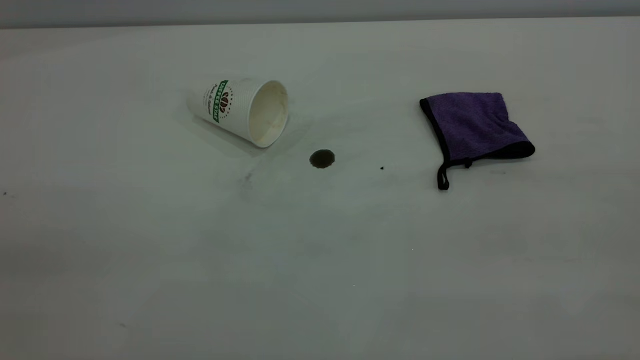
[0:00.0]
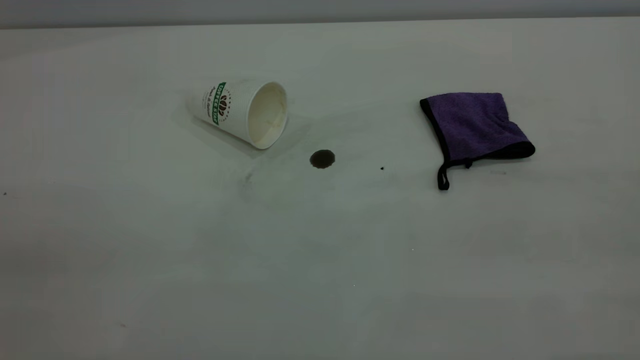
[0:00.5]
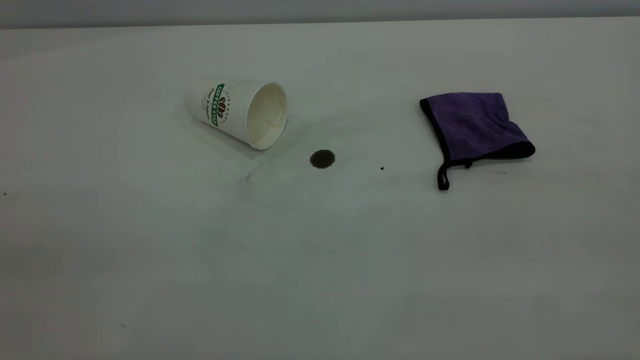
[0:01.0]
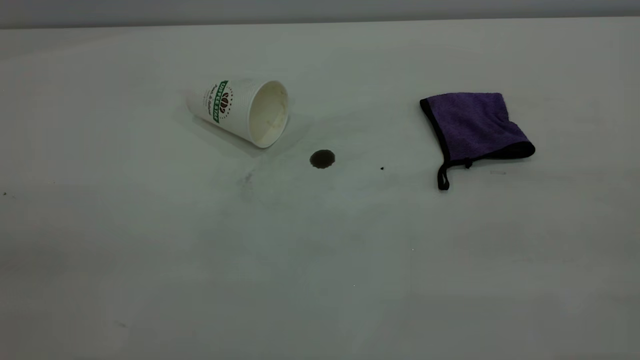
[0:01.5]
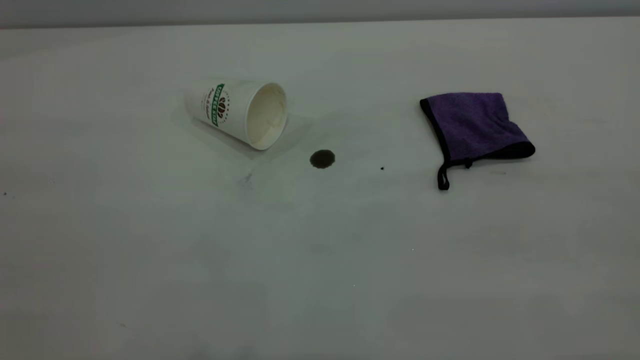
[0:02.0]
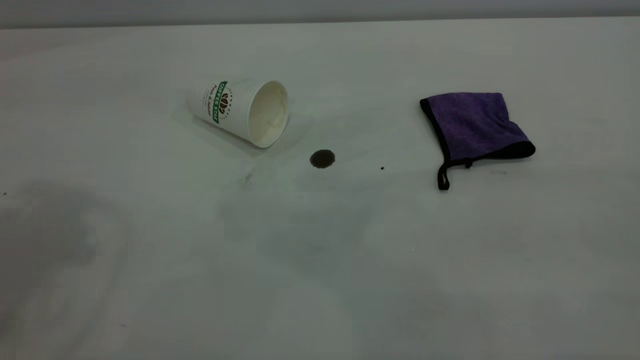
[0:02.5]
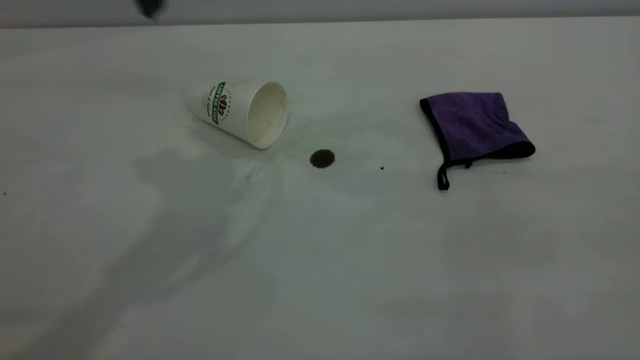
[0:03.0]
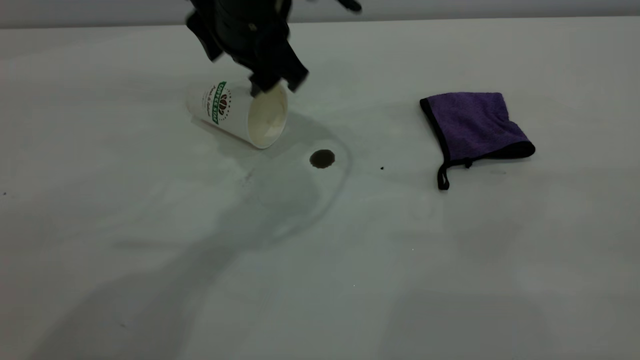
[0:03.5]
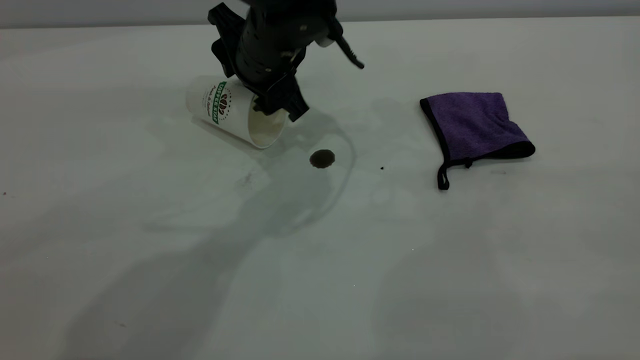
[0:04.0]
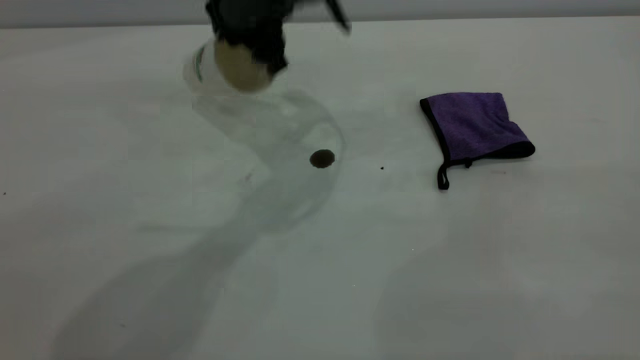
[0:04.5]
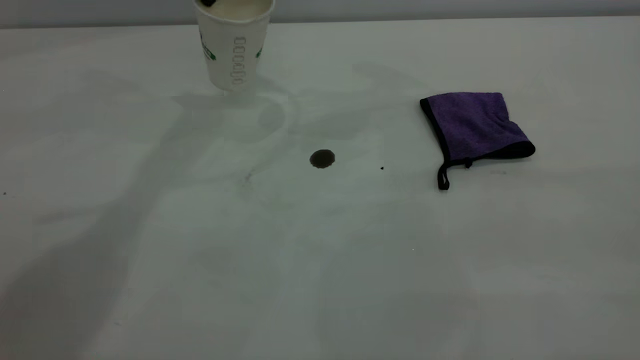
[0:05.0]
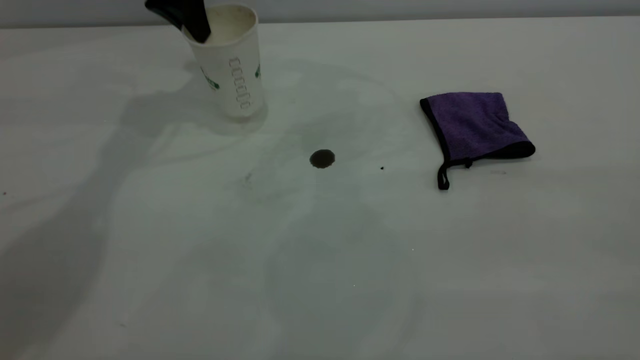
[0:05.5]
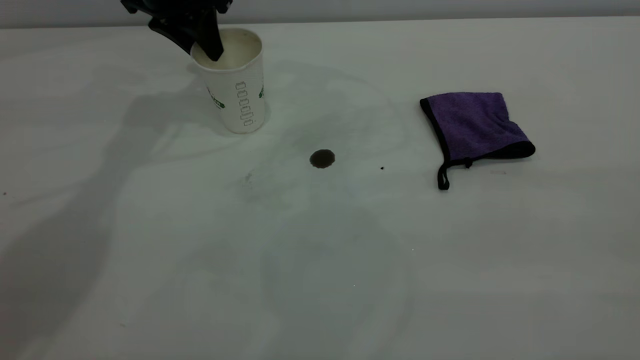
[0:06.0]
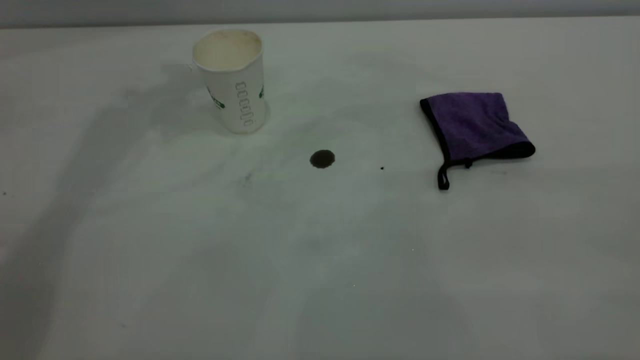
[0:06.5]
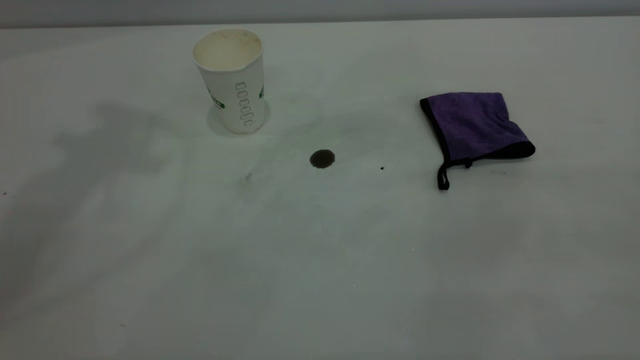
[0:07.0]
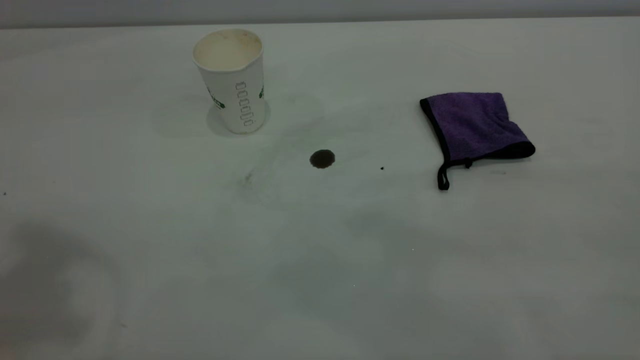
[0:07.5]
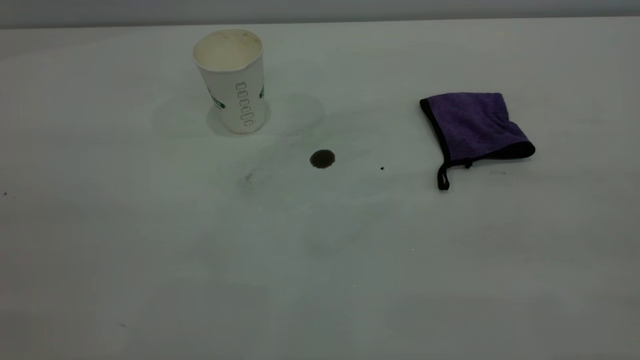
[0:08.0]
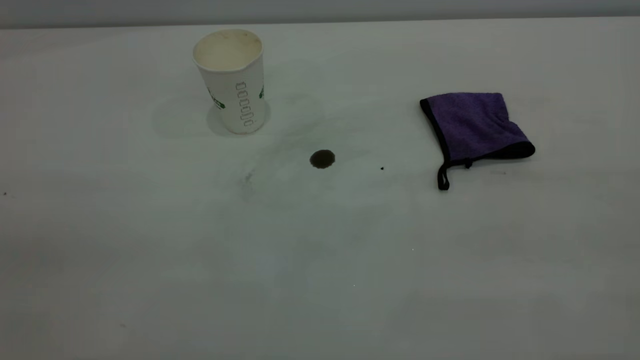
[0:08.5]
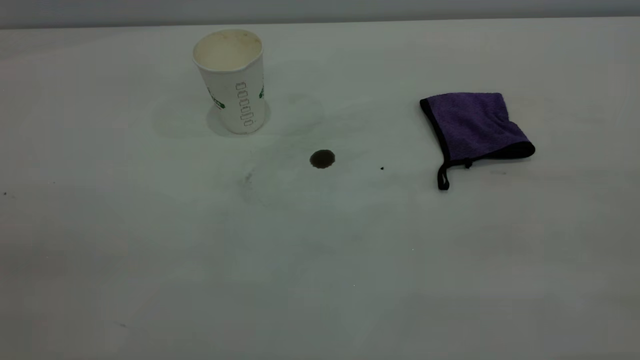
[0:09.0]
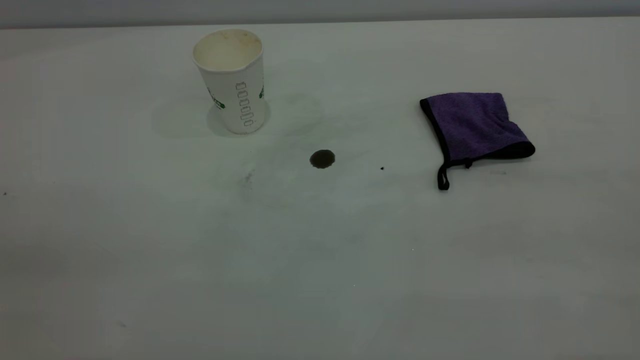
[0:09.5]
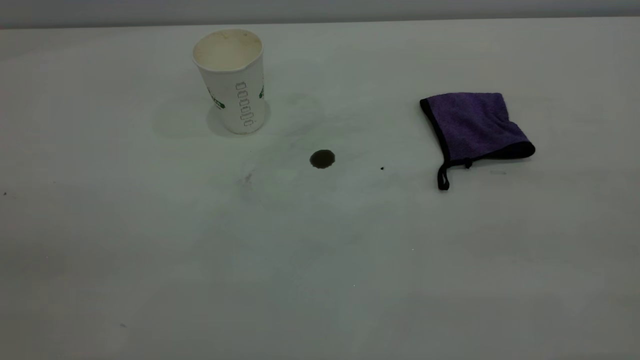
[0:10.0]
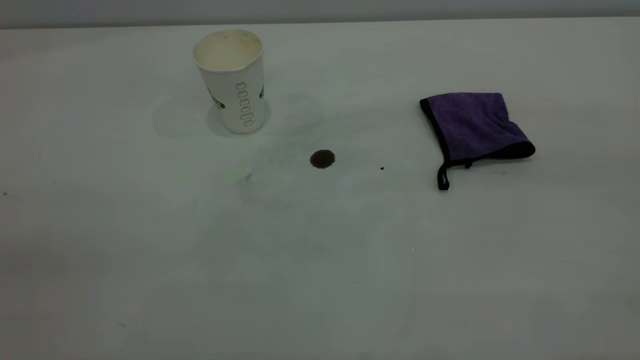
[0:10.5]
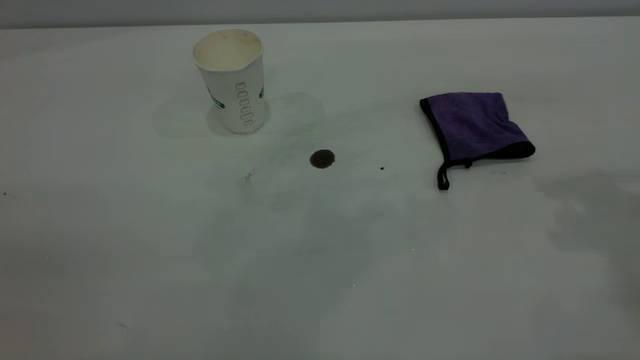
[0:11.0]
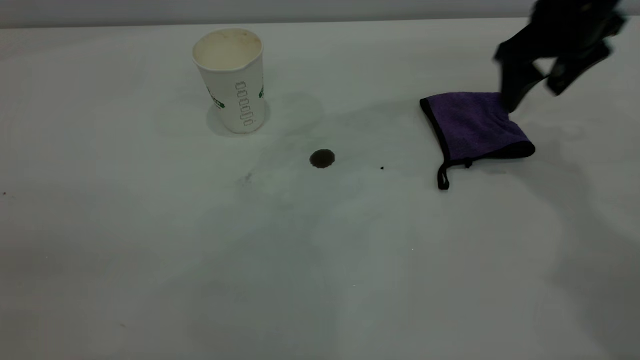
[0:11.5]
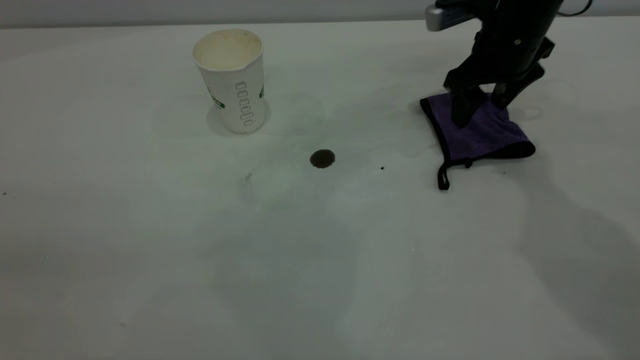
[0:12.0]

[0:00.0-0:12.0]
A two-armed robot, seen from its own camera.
Task of the whole recording: the left gripper pick up the fallen cup and place it upright, the right gripper grasp the purple rag and wipe the coffee stain on the table, the right gripper put the purple rag back in its original position.
Step, 0:00.0 to 0:06.0: Stand the paper cup upright.
0:02.0 to 0:04.0: The left gripper heads forward, downward and to the right, covering approximately 50 cm.
0:04.0 to 0:06.0: The left gripper heads to the left, forward and upward, covering roughly 20 cm, and closes, then reopens.
0:06.0 to 0:08.0: The left gripper goes approximately 50 cm backward and upward.
0:10.0 to 0:12.0: The right gripper heads forward and downward, covering some 50 cm, and opens its fingers.

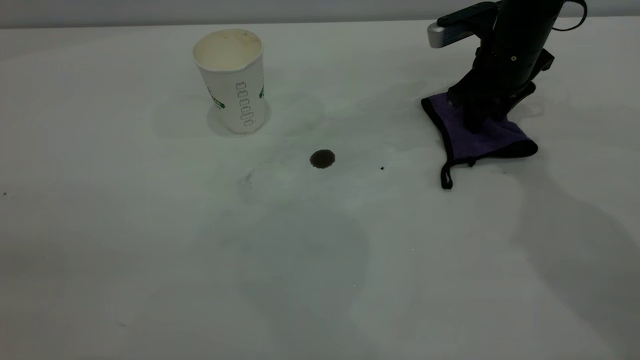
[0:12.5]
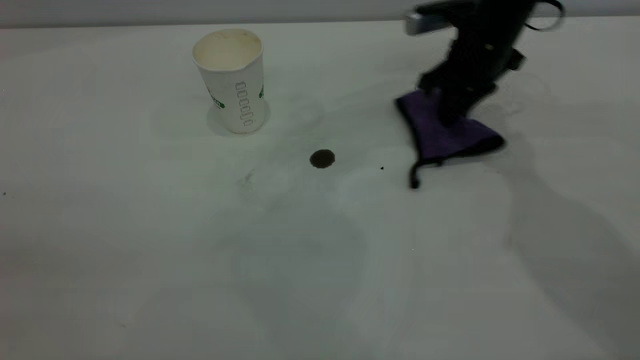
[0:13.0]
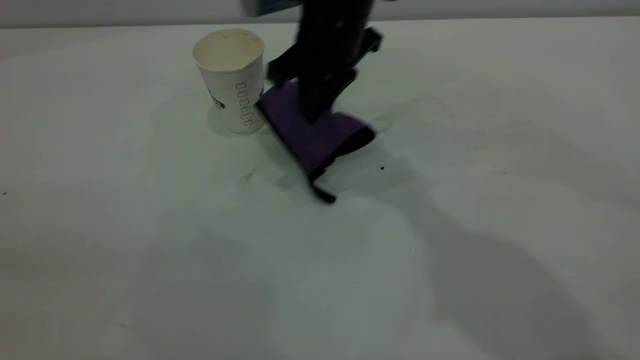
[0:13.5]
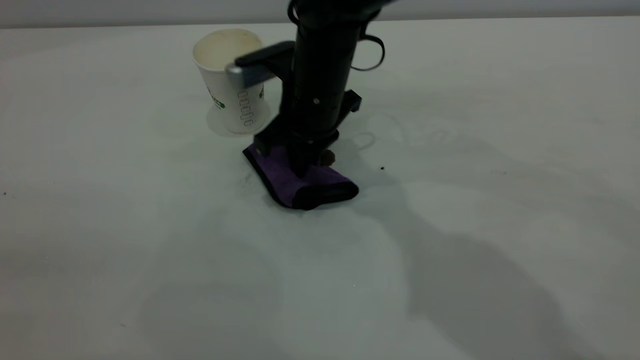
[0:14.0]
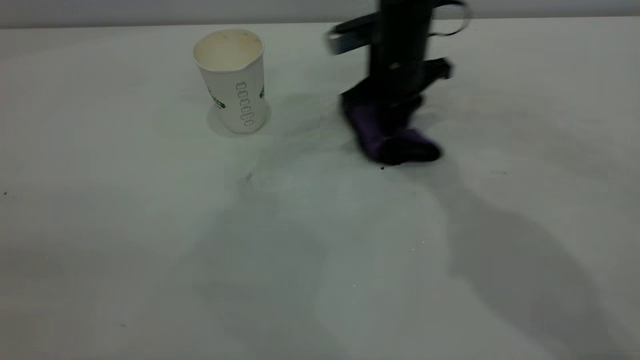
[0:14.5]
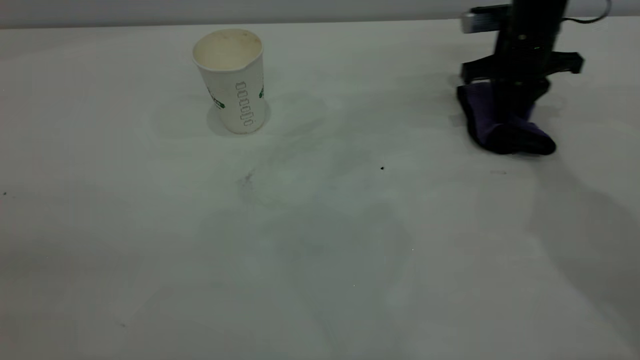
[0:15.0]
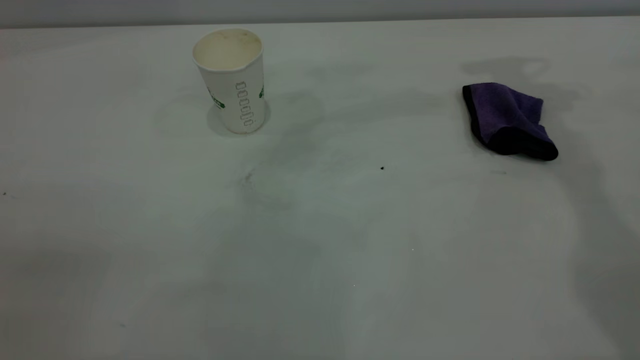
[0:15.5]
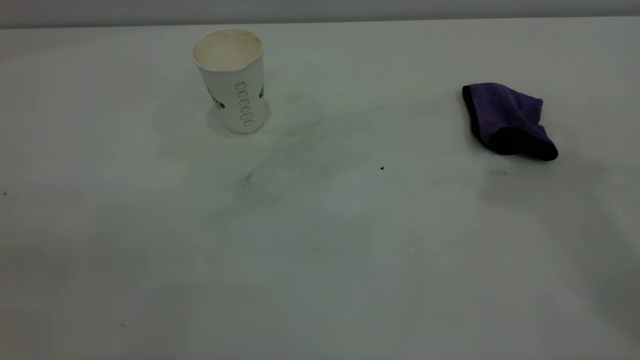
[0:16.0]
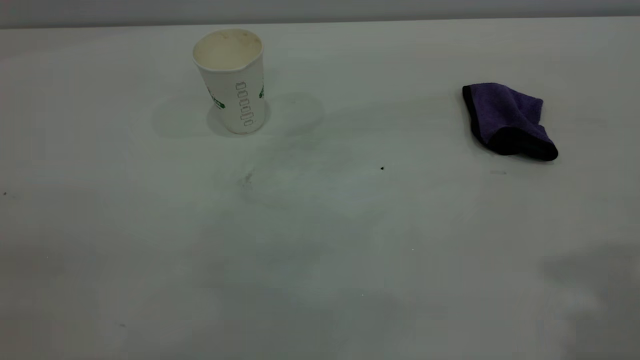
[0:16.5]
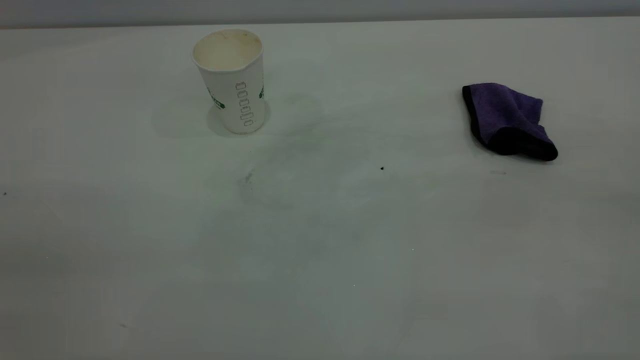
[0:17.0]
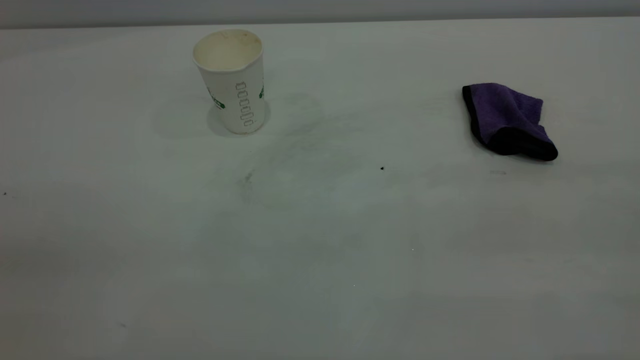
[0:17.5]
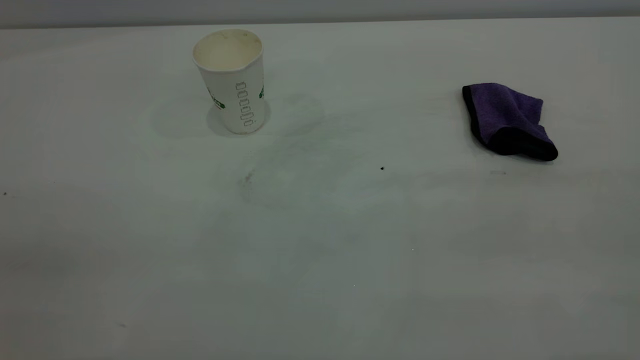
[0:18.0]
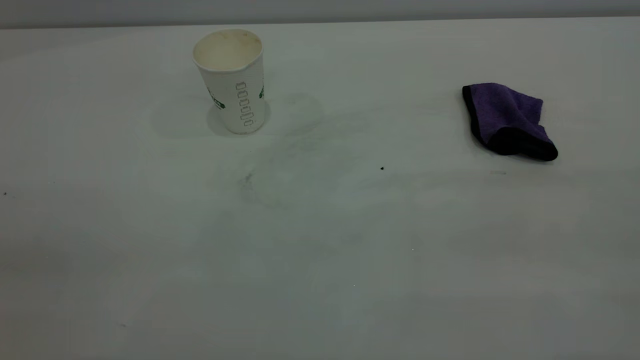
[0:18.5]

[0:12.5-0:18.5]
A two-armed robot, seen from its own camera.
Task of the whole recording: the left gripper pick up the fallen cup and place it upright, the right gripper grasp the purple rag and wipe the coffee stain on the table, the right gripper put the purple rag back in its original position.
Step, 0:12.5 to 0:15.0: Wipe the stains off the table with a rag.
0:12.5 to 0:14.5: The right gripper travels to the left by roughly 10 cm, and closes.
0:14.5 to 0:16.5: The right gripper is displaced upward, backward and to the right by roughly 50 cm, and opens its fingers.

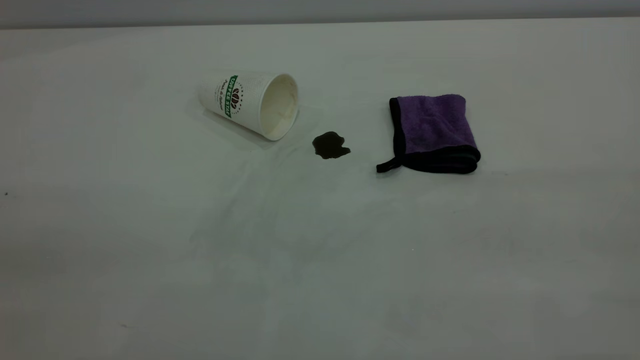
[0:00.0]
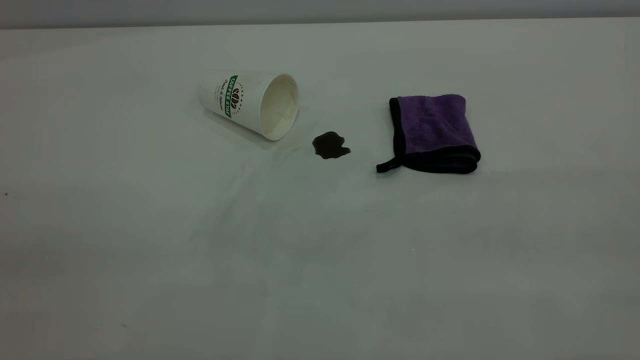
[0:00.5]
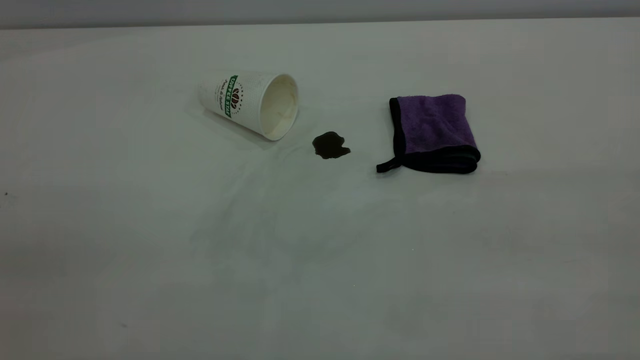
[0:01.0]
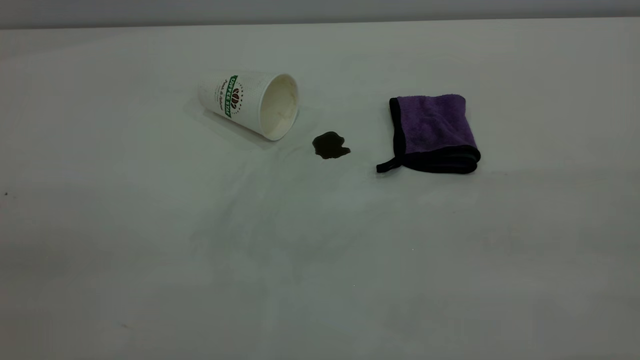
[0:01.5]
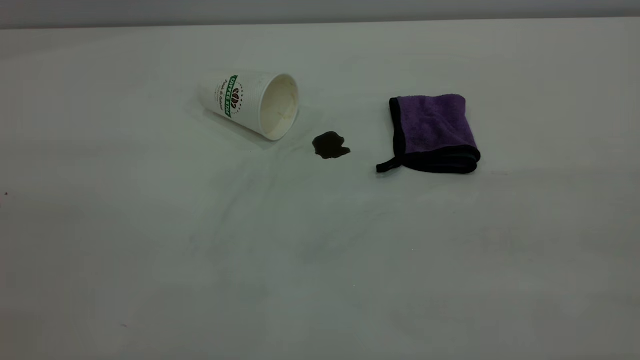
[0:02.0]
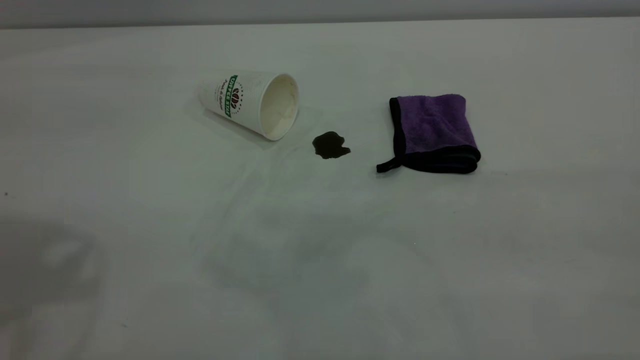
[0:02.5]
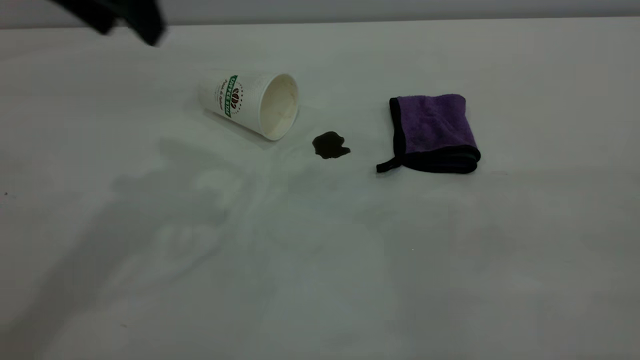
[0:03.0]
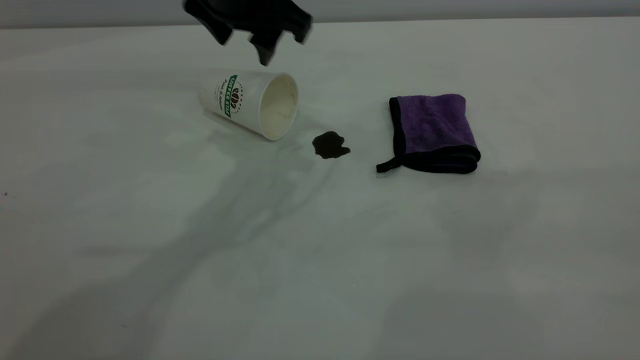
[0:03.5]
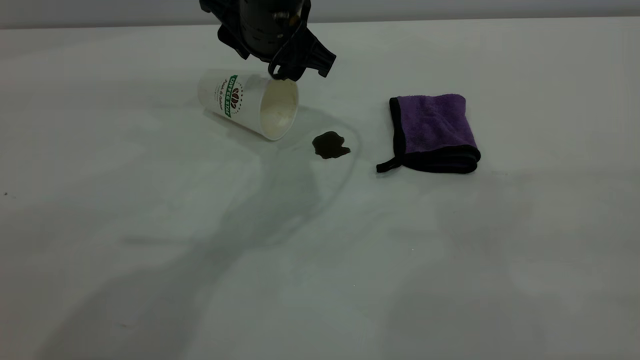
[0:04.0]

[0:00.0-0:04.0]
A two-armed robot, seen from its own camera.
Task of the whole recording: the left gripper pick up the fallen cup and place it upright, the right gripper grasp the purple rag and wipe the coffee stain on the table, the right gripper put the purple rag back in its original position.
0:02.0 to 0:04.0: The left gripper goes approximately 50 cm forward, to the right and downward.
